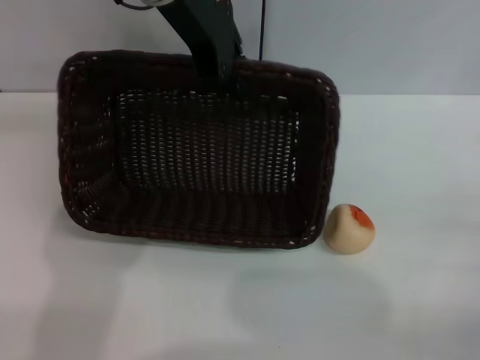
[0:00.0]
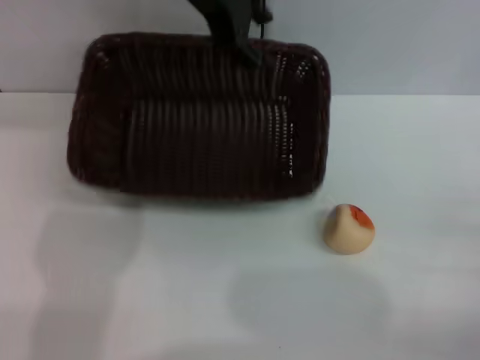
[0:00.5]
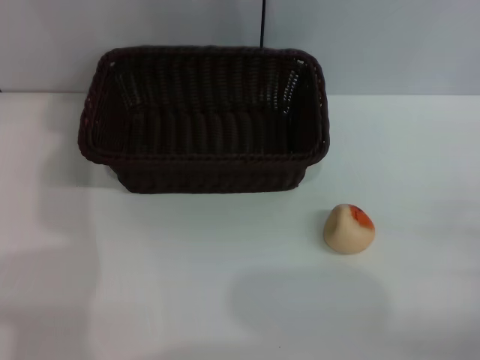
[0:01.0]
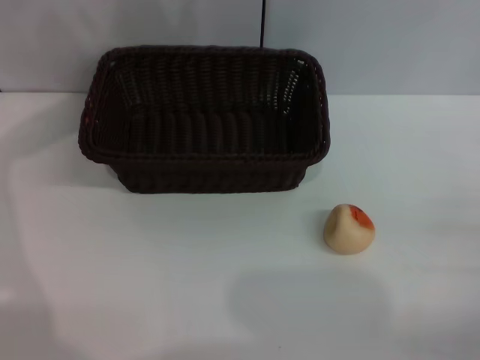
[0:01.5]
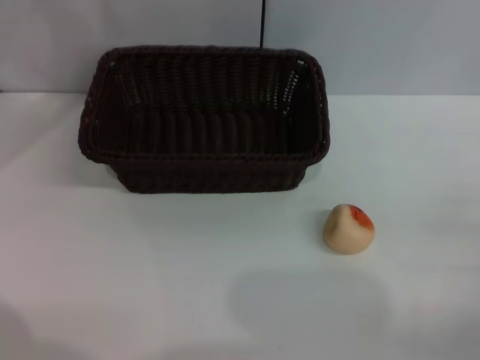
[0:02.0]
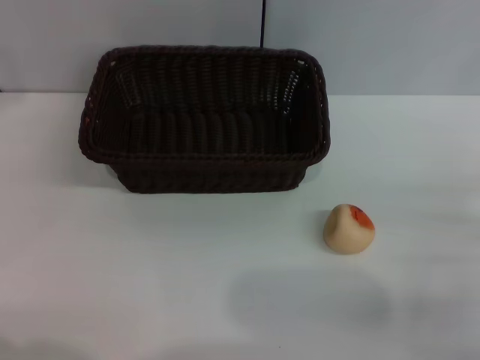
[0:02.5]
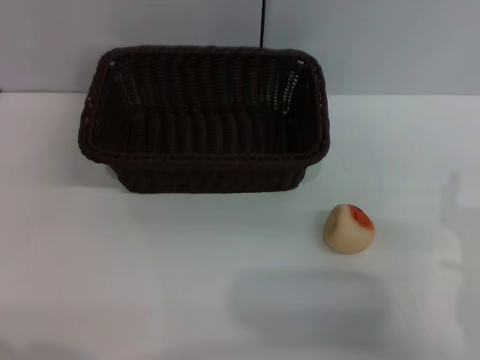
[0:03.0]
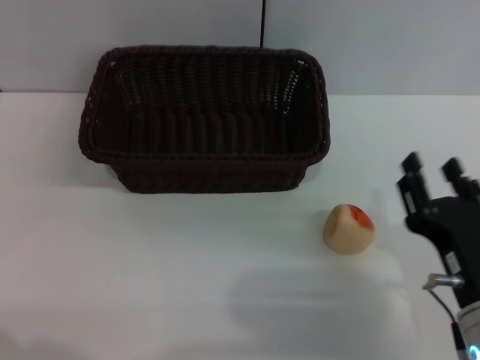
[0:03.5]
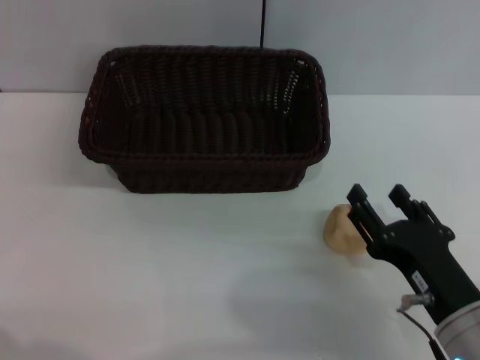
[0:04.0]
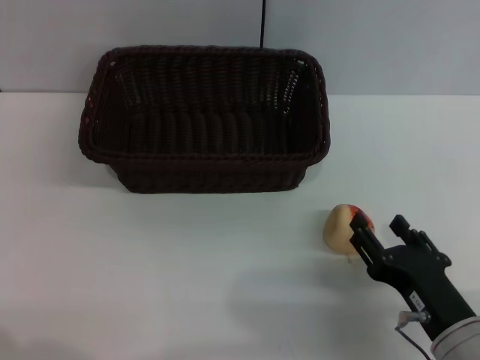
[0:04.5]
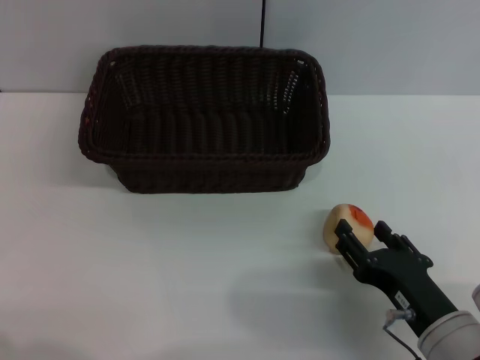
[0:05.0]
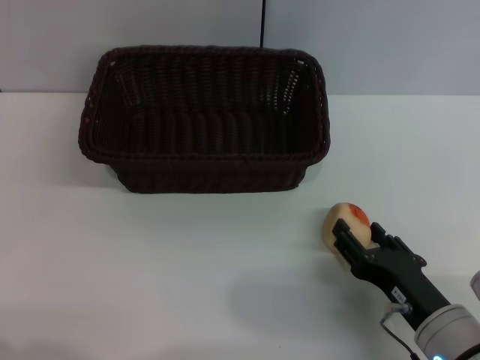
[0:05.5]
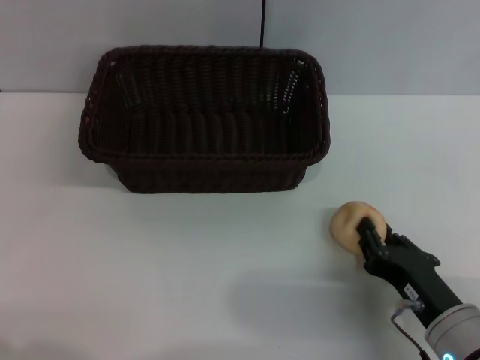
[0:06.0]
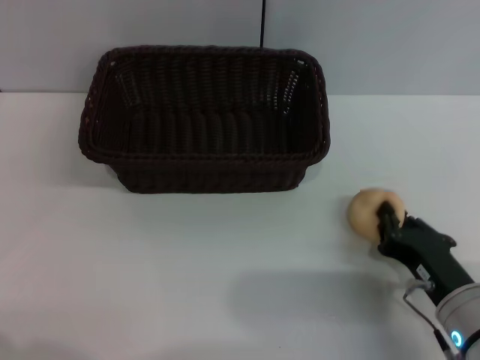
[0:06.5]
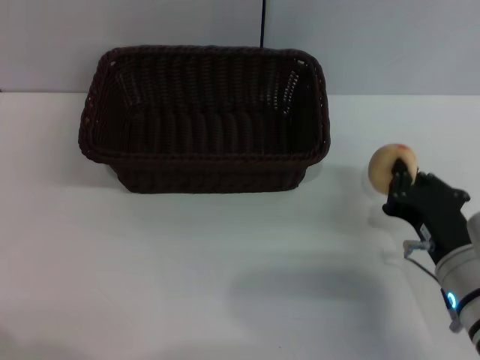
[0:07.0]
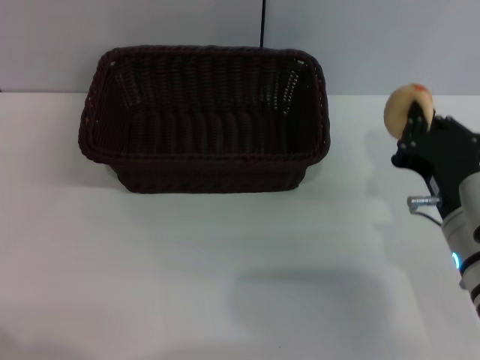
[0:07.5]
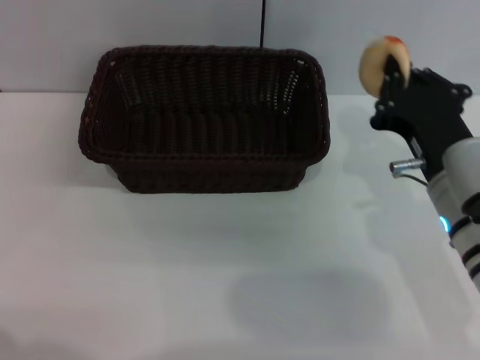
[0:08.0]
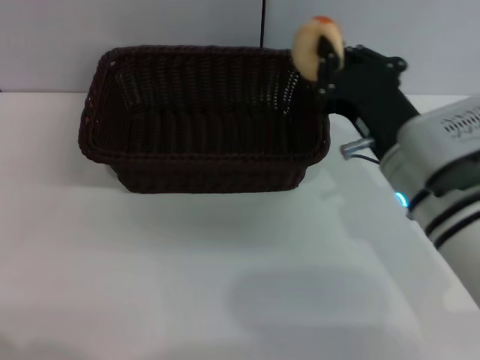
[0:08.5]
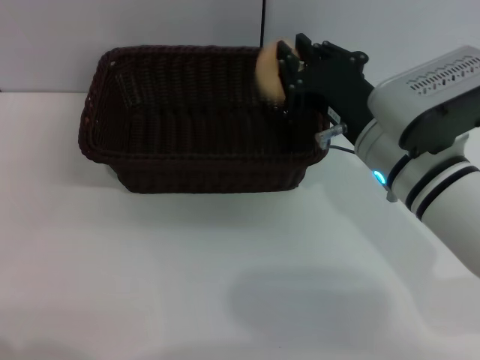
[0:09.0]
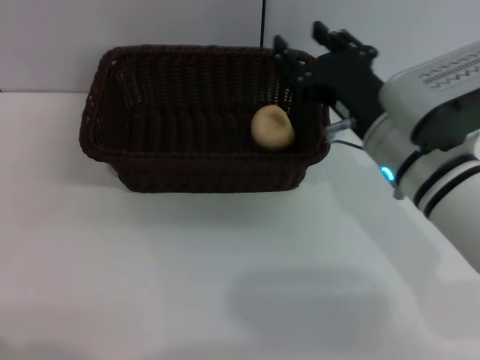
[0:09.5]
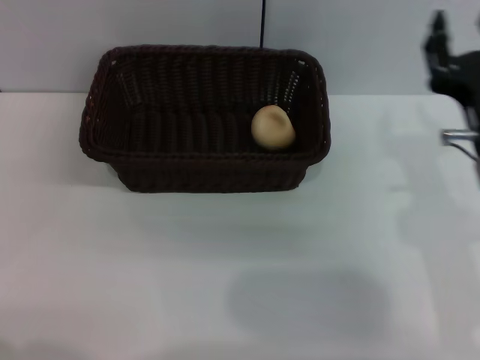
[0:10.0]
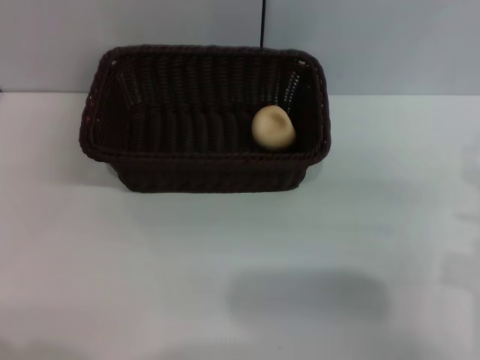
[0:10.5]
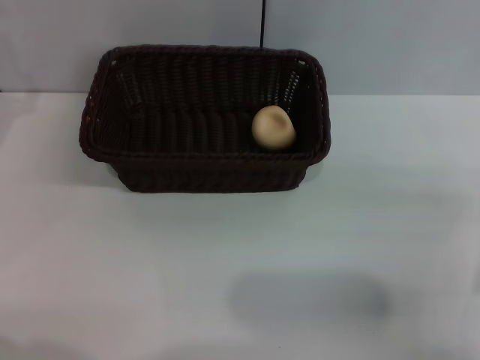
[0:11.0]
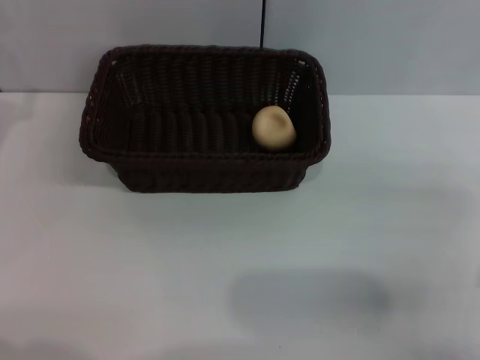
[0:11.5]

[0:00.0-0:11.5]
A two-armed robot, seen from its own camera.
Step, 0:01.0 to 0:07.0: Pick up the egg yolk pastry with the left gripper.
0:00.0 to 0:02.0: The left gripper goes approximately 25 cm to the left, and opens up.
0:02.0 to 0:04.0: The left gripper heads to the left and downward, covering about 10 cm. The right gripper travels to the left by some 15 cm.
0:04.0 to 0:06.0: The grippers move only a little.
0:06.0 to 0:07.5: The right gripper goes approximately 10 cm upward and forward, and closes up.
0:07.5 to 0:09.5: The right gripper is displaced forward by roughly 5 cm, and opens.
0:09.5 to 0:11.5: The left gripper travels downward and to the right by some 10 cm, while the right gripper moves to the right and backward, roughly 15 cm.
